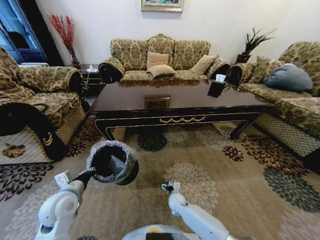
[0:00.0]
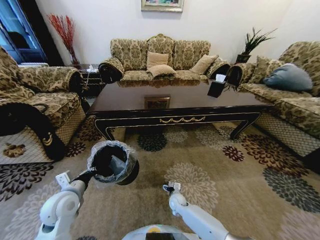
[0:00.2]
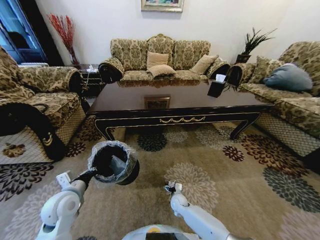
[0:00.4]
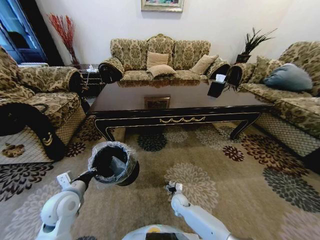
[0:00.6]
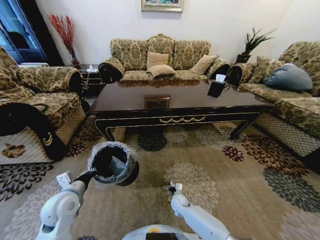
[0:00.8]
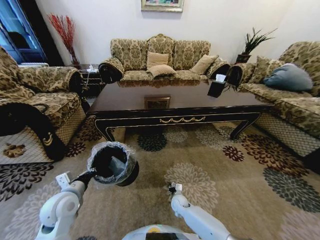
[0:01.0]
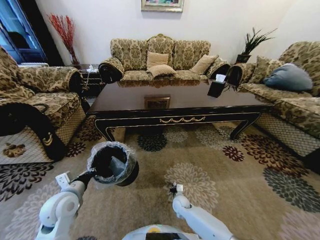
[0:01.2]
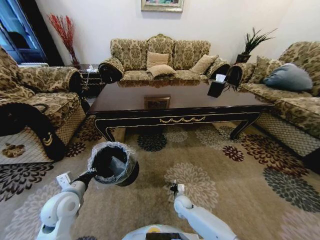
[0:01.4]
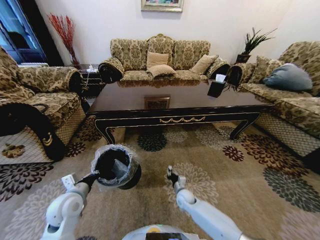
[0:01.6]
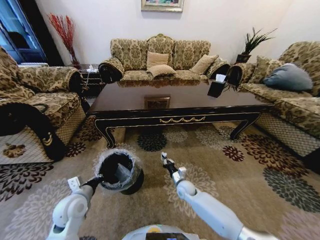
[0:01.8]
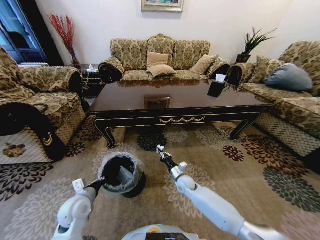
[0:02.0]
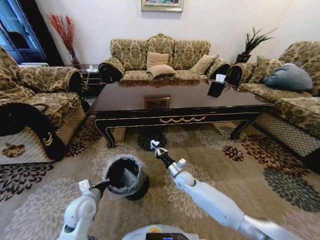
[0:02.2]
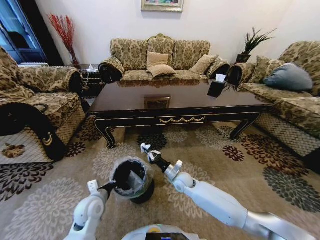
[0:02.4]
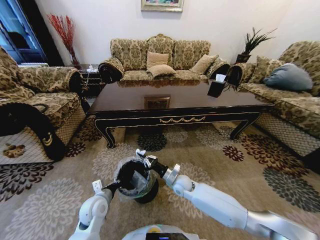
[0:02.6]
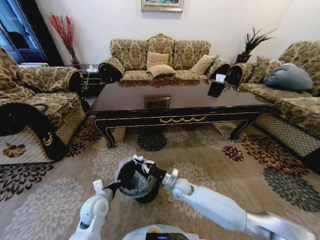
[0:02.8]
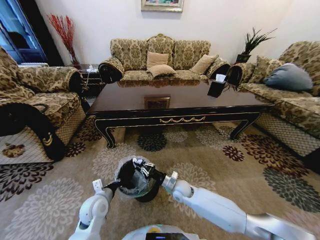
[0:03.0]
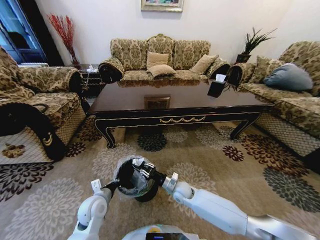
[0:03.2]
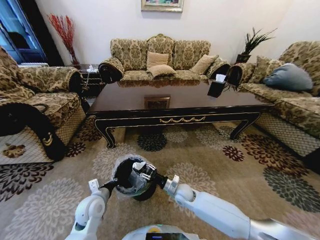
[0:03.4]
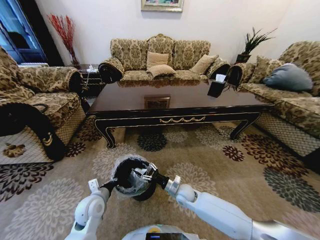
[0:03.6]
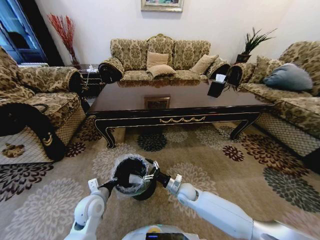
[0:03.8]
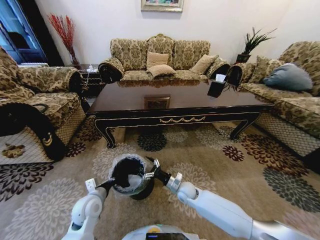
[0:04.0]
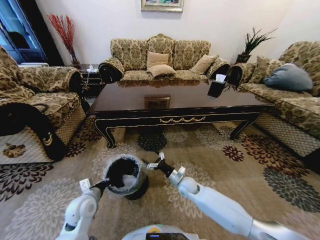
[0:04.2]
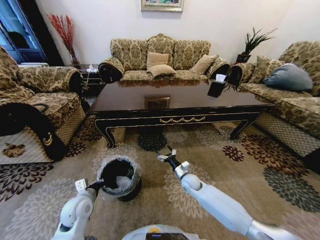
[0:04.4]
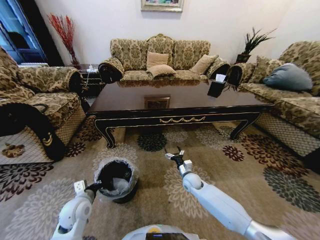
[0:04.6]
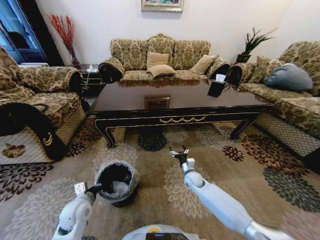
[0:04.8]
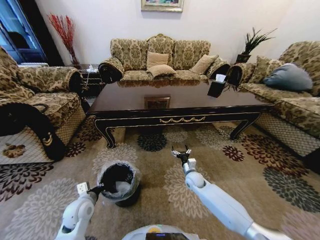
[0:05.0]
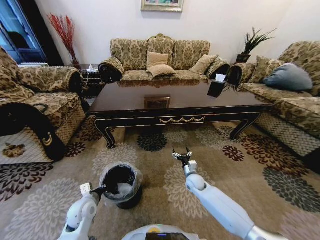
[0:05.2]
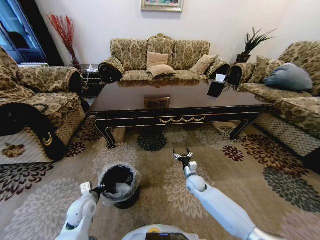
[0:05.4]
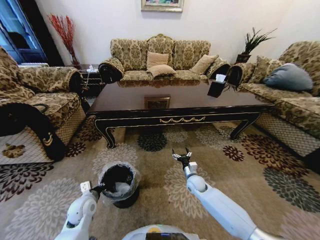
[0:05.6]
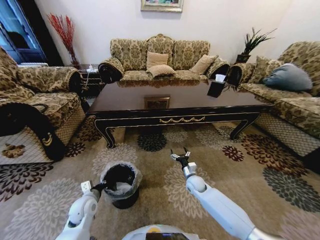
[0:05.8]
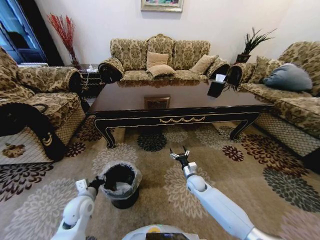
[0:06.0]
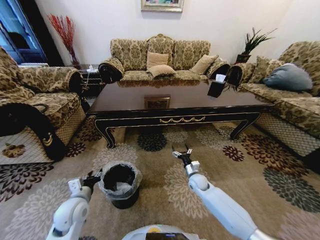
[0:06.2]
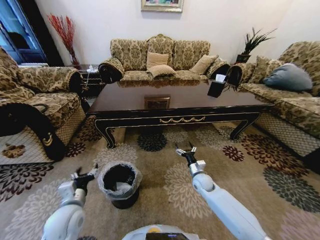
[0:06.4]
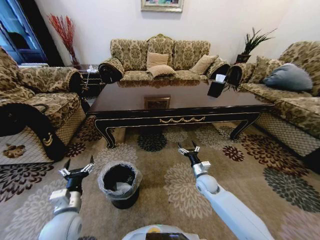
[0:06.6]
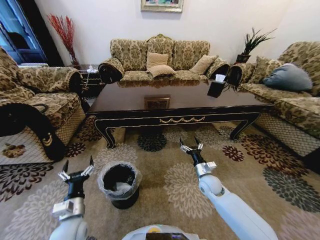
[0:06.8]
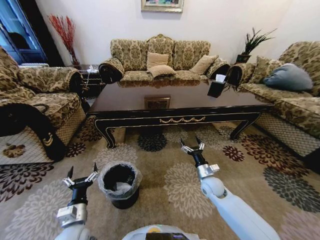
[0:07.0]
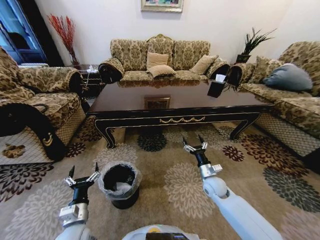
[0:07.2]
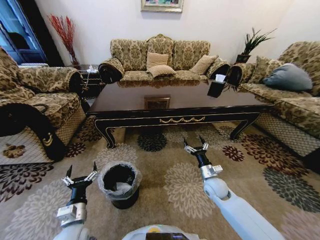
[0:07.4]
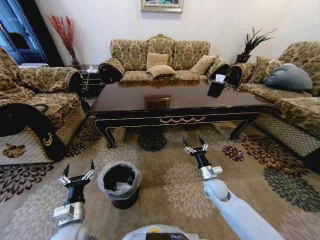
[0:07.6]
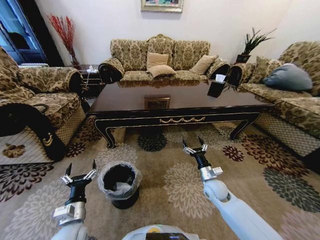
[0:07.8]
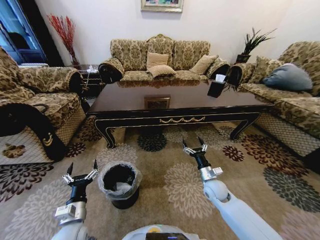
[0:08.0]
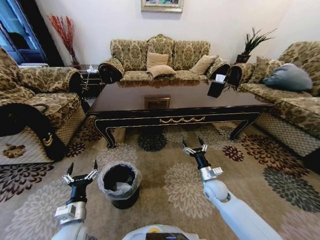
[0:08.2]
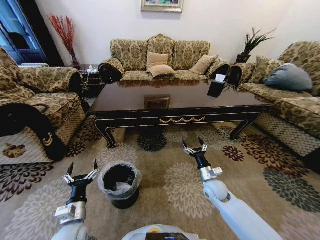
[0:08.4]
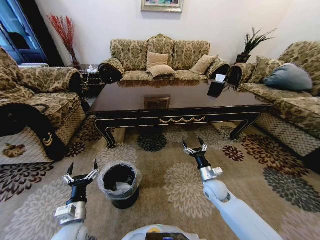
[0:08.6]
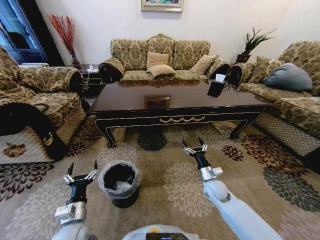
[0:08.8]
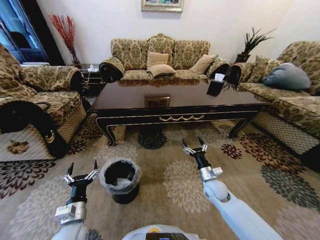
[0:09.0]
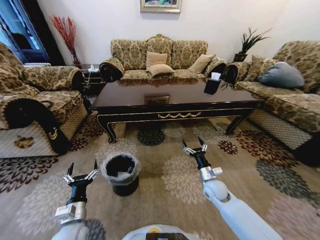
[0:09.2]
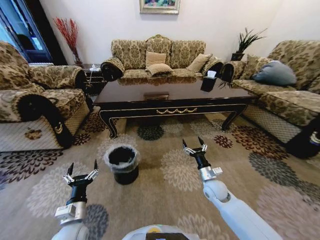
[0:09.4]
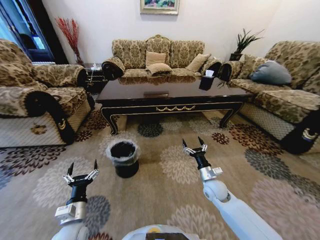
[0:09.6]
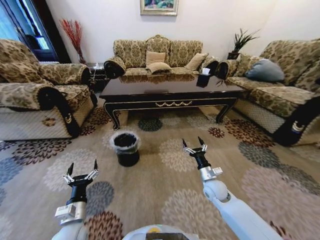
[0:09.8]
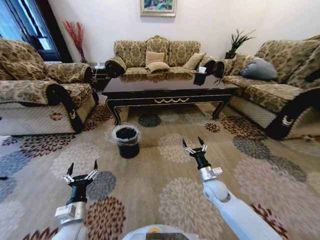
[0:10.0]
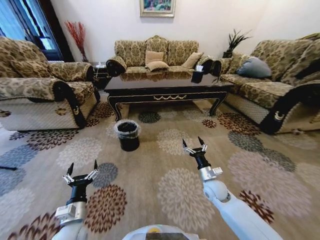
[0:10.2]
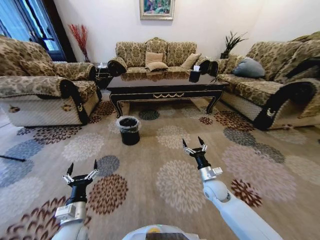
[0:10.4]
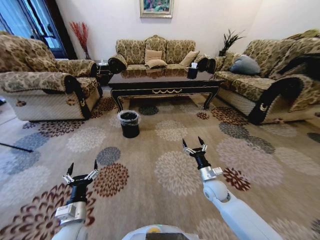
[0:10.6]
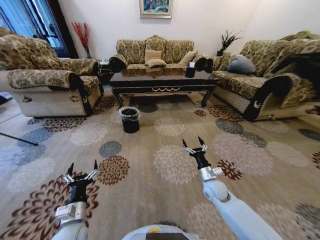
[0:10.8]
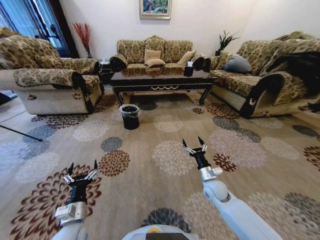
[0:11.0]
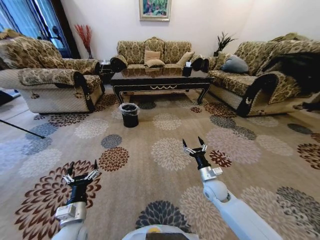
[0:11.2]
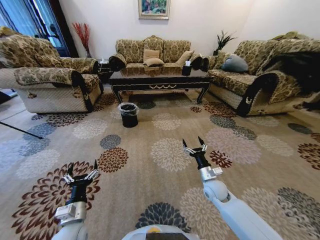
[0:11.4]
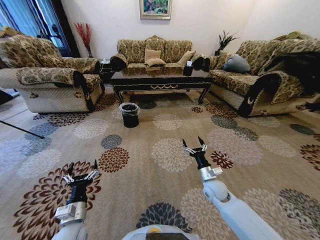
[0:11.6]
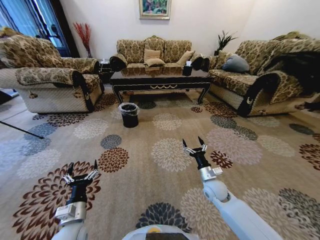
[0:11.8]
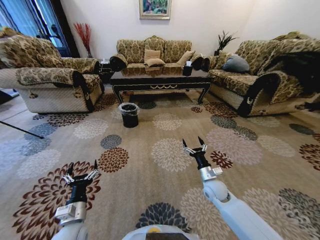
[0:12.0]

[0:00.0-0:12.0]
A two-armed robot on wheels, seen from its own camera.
Task of the whole recording: Move to the front of the table and pick up the trash from the floor, then place it into the trash bin.
0:00.0 to 0:01.6: The right gripper closes.
0:01.6 to 0:03.0: The left gripper goes some 10 cm to the right and downward. Meanwhile the right gripper heads upward, covering roughly 10 cm.
0:03.0 to 0:04.4: The right gripper shifts approximately 5 cm to the right, and opens. The left gripper shifts some 5 cm to the left.
0:06.0 to 0:07.6: The right gripper shifts approximately 10 cm upward and backward. Meanwhile the left gripper moves backward, some 10 cm, and opens.
0:07.6 to 0:09.0: Both grippers stay put.

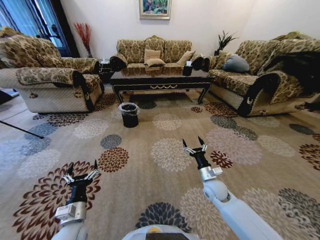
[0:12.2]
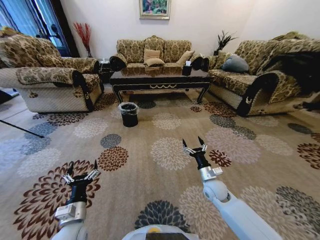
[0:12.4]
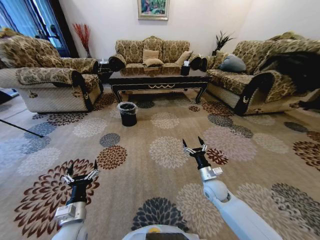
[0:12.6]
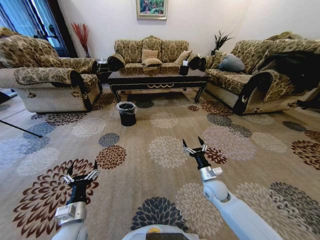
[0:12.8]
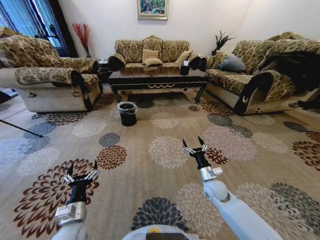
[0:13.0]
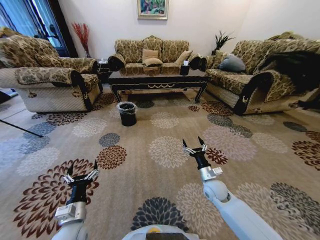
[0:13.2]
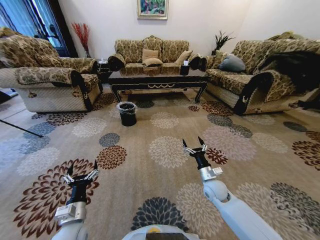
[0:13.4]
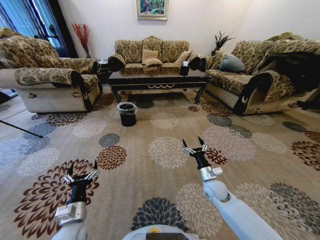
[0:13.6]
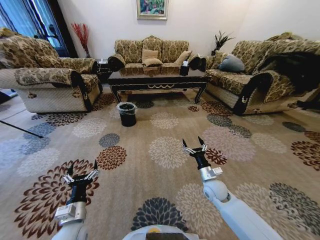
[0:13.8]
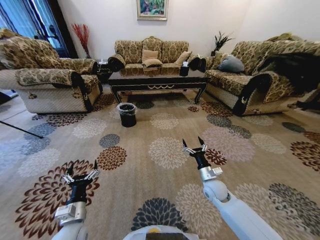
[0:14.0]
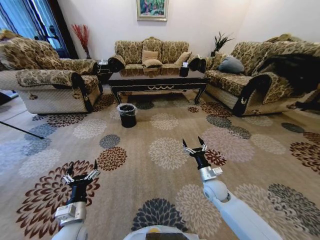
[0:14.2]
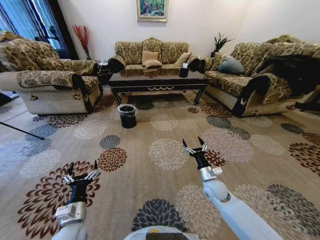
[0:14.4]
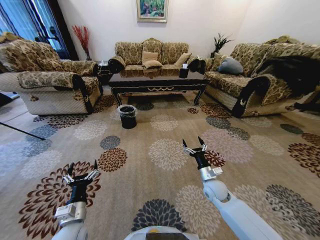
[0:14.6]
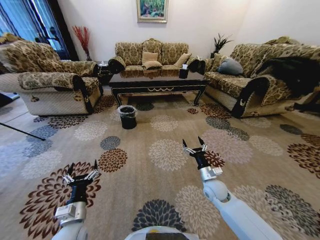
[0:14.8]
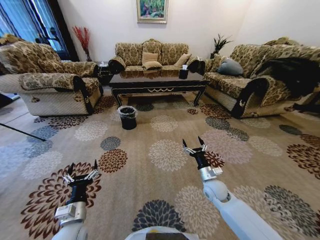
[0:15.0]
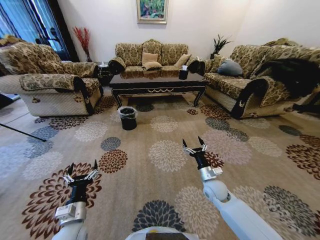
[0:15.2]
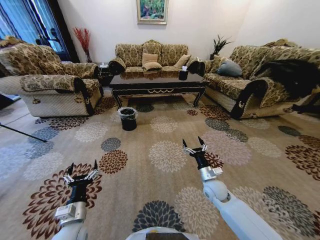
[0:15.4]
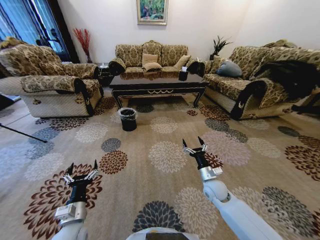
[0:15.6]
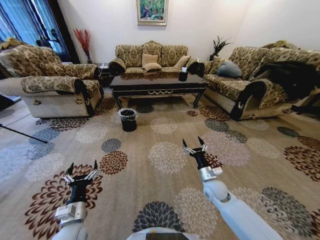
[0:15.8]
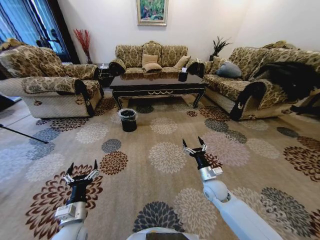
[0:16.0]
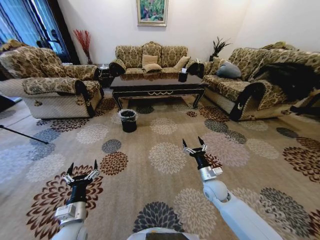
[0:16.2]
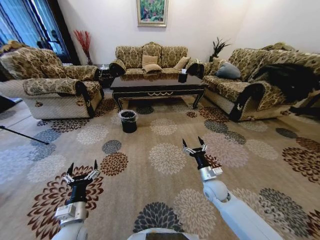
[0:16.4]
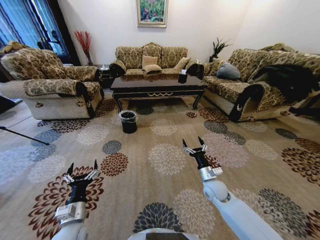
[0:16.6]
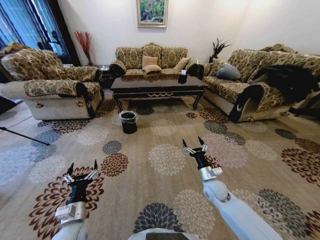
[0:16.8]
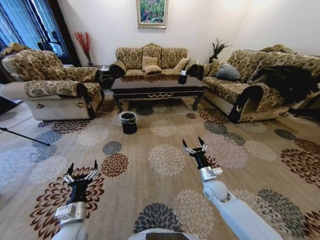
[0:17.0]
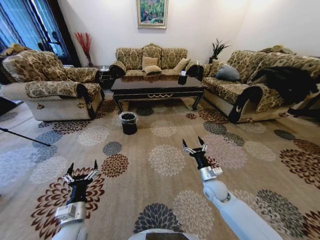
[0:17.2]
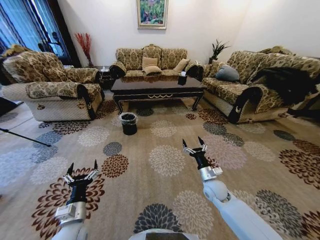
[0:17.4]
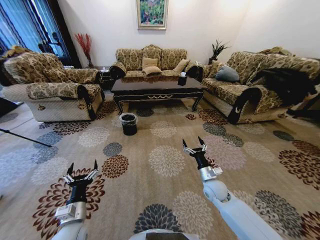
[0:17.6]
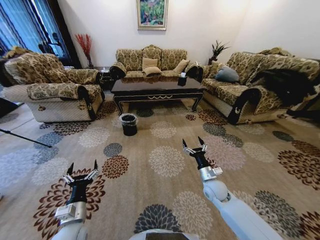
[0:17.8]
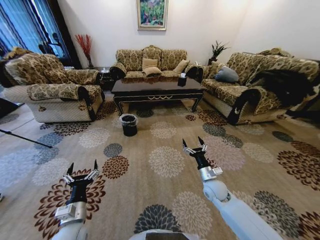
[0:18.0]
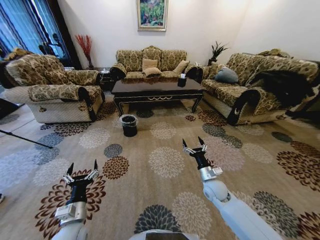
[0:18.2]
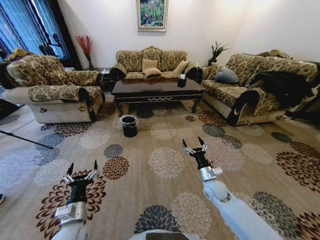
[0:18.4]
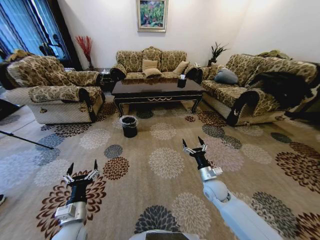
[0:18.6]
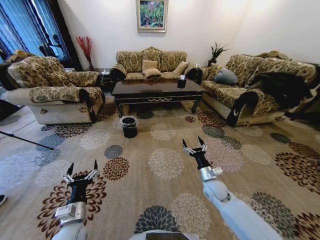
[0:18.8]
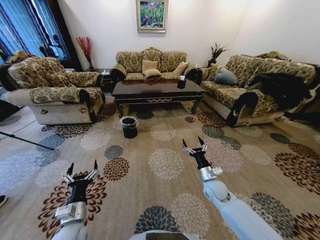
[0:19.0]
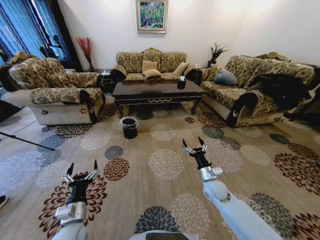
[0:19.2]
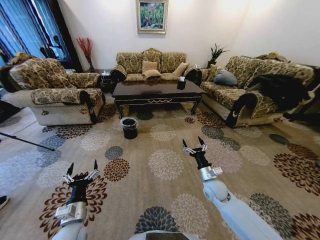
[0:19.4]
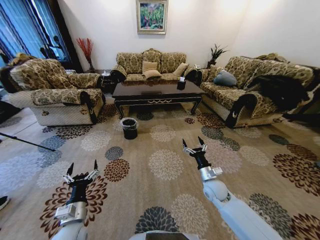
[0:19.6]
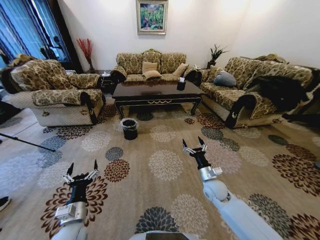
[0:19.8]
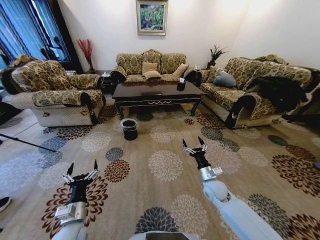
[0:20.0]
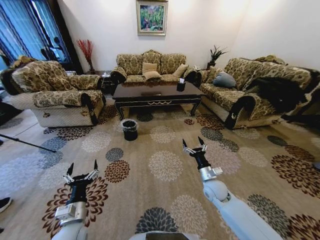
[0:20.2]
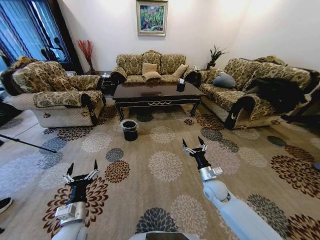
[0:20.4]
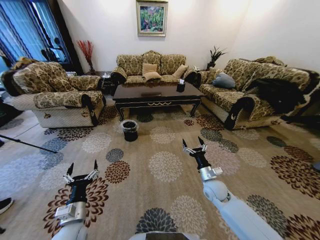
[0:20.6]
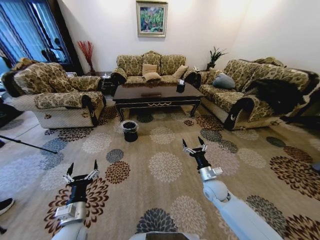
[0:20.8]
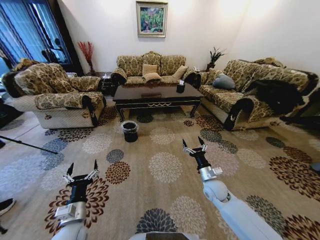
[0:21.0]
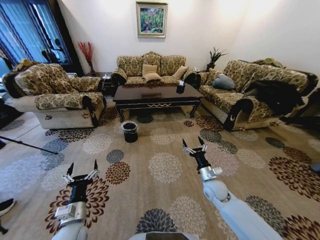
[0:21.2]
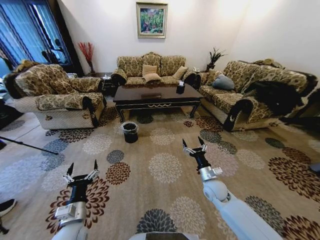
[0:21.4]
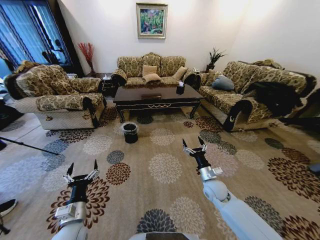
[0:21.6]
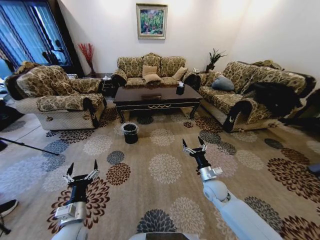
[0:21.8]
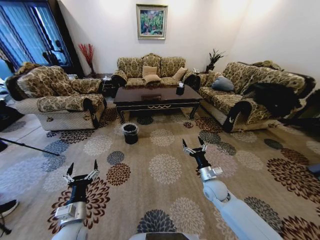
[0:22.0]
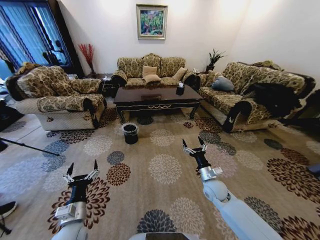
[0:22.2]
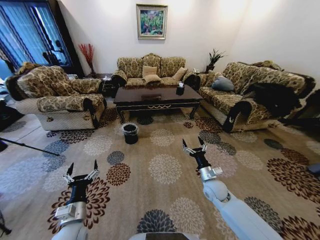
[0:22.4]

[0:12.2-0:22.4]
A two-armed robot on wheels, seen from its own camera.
Task of the whole recording: Move to the front of the table and pick up the trash from the floor, then place it into the trash bin.
0:12.2 to 0:13.6: Both grippers stay about where they are.
0:21.0 to 0:22.4: Both grippers stay about where they are.
